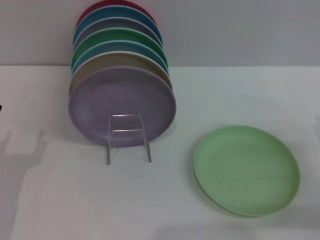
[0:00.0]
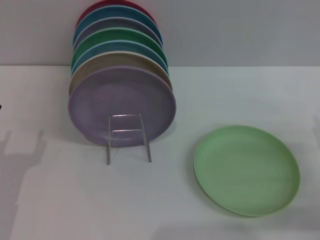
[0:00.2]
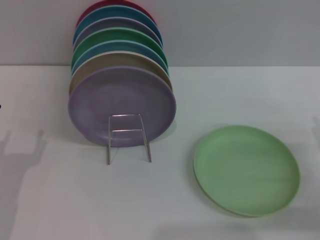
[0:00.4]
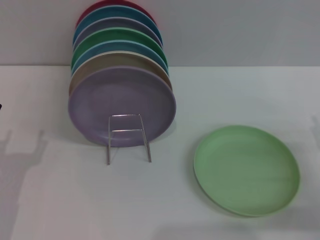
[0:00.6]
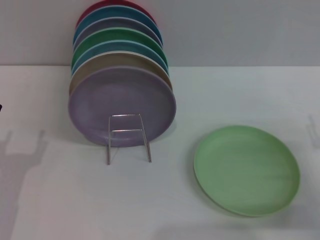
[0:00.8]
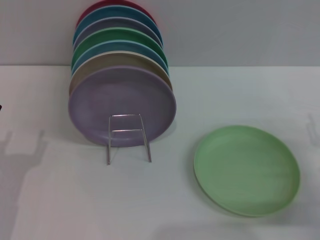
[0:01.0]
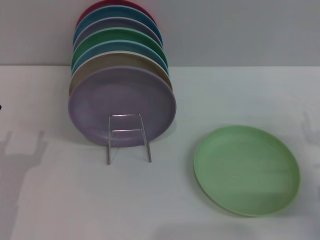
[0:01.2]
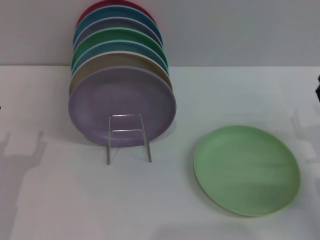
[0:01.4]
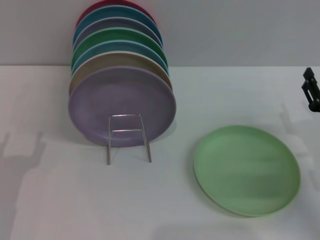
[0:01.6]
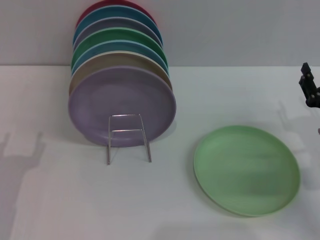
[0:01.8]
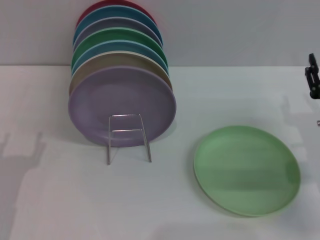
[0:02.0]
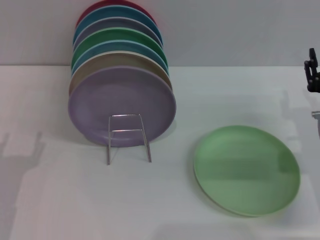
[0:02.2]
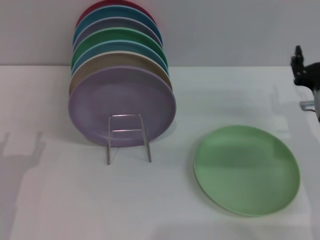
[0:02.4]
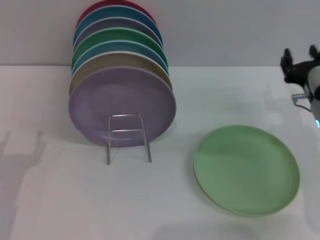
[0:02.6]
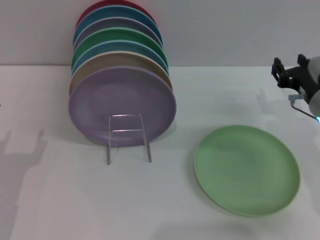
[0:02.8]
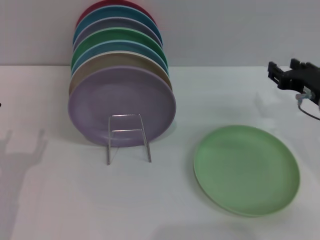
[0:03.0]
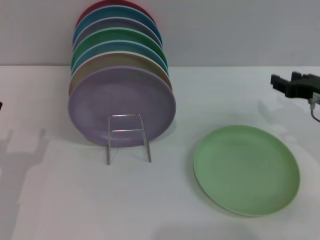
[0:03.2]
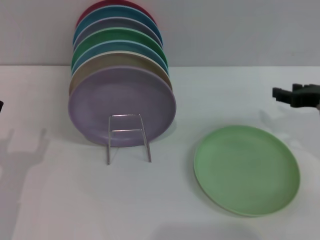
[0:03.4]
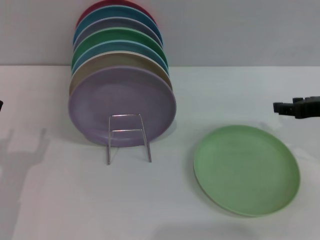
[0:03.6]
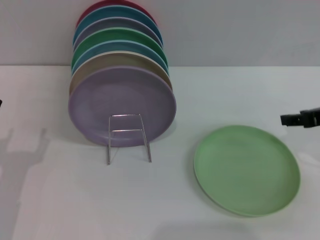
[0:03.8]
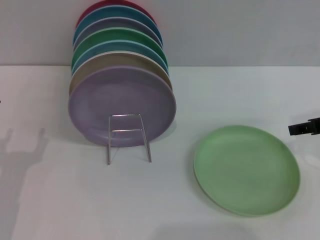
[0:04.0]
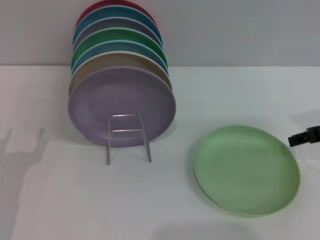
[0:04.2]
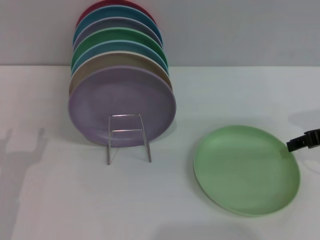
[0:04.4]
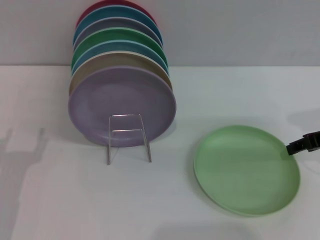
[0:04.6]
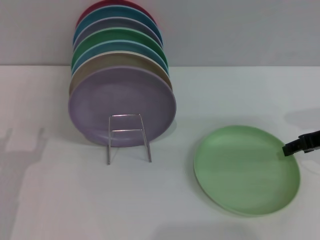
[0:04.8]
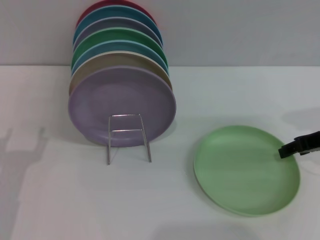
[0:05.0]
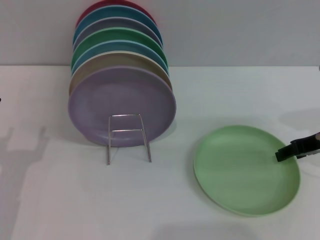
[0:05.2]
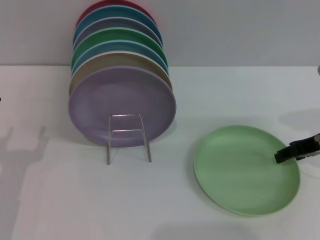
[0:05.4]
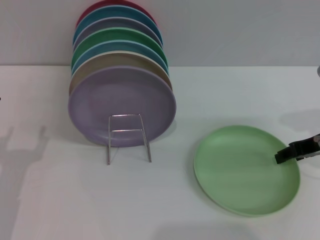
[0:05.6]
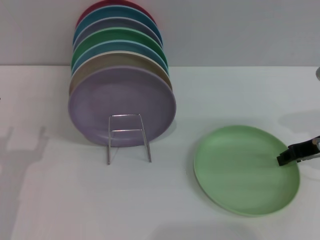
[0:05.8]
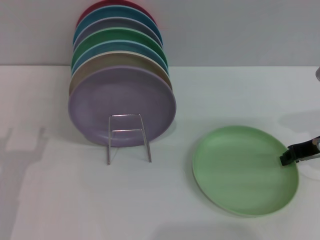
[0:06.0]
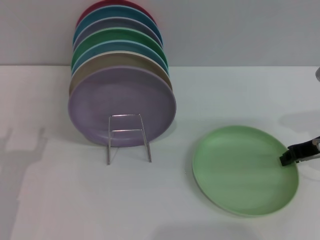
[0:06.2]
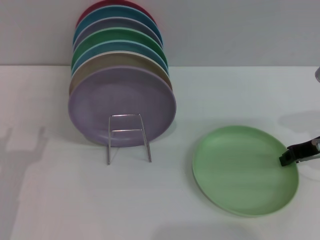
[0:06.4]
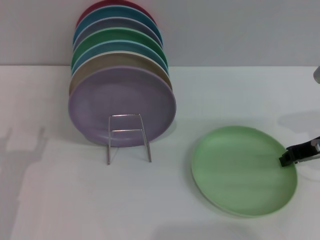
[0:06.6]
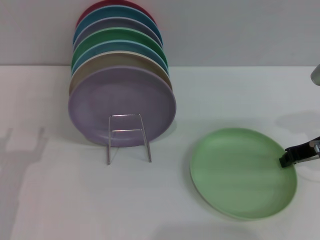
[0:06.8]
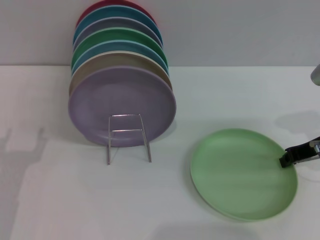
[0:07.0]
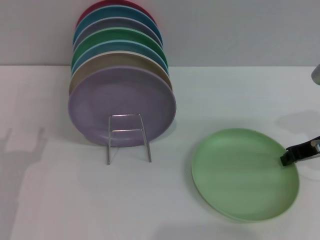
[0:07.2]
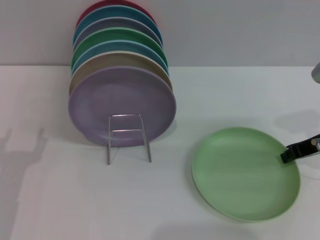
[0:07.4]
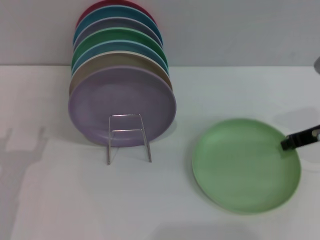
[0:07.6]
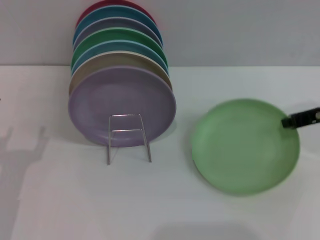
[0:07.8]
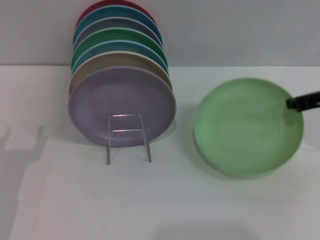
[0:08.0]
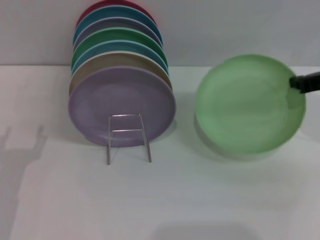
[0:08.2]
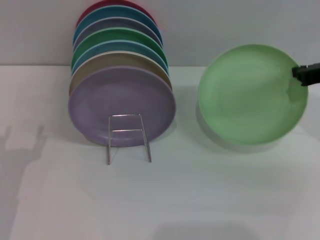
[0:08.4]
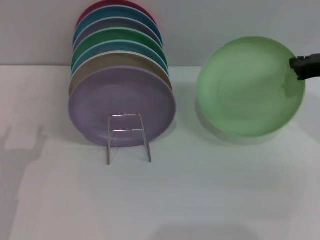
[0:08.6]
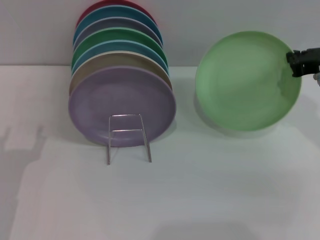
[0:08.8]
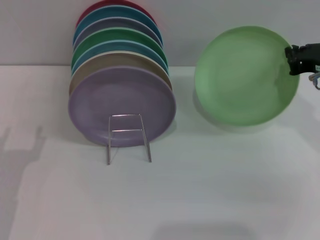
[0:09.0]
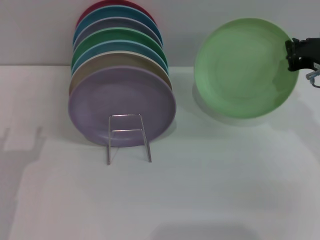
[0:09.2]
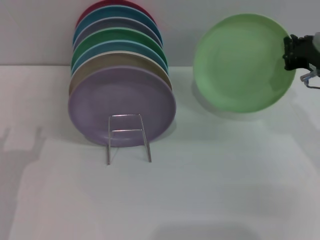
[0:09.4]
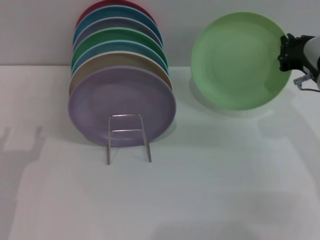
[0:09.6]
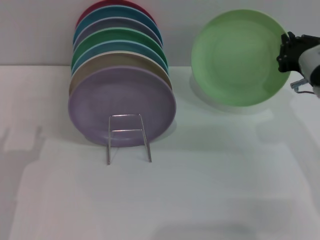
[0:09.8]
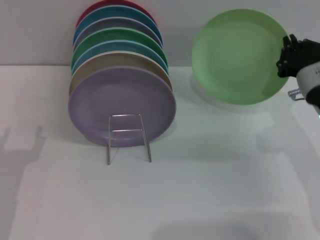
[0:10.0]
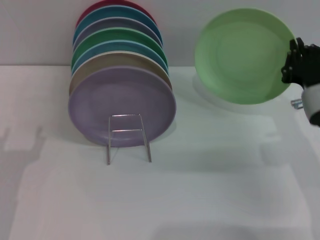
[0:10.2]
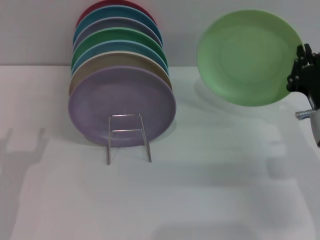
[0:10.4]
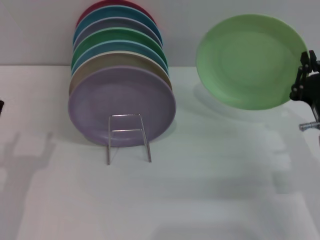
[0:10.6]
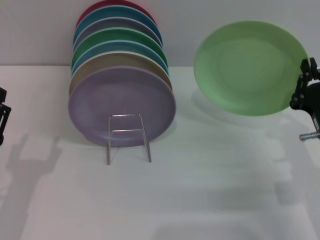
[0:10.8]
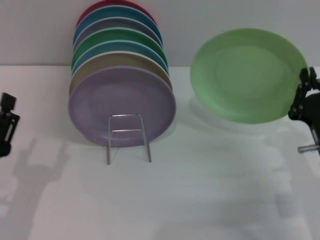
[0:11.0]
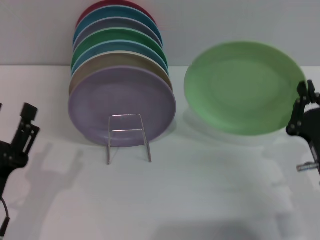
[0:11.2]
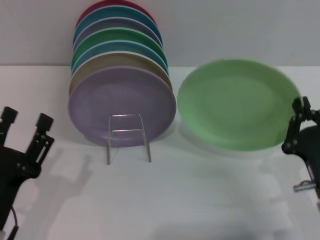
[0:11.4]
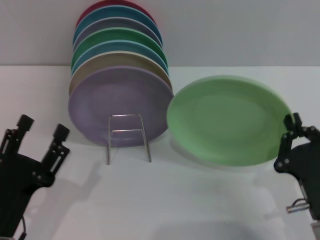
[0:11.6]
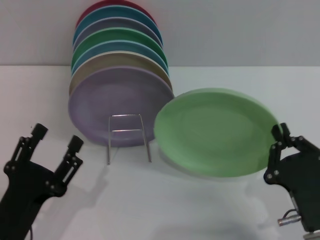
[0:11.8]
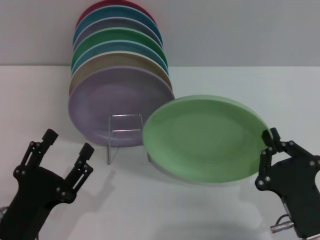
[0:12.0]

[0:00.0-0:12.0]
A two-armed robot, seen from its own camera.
Task of the whole recording: Grip the plate with one hand, pass it to the other, then set it on the shelf.
Step, 0:00.0 to 0:09.4: Pick up the plate with the right gripper.
0:00.0 to 0:01.6: The right gripper ends up approximately 5 cm from where it was.
0:01.6 to 0:03.0: The right gripper is displaced upward and forward by about 10 cm.
0:03.0 to 0:04.4: The right gripper ends up roughly 5 cm from where it was.
0:04.4 to 0:06.0: The right gripper closes up.
0:06.0 to 0:07.6: The right gripper closes up.
0:09.0 to 0:10.4: The right gripper shifts about 10 cm downward and backward.
0:10.4 to 0:12.0: The left gripper is displaced backward and to the right by roughly 10 cm. Meanwhile the right gripper is displaced backward and to the left by about 15 cm.

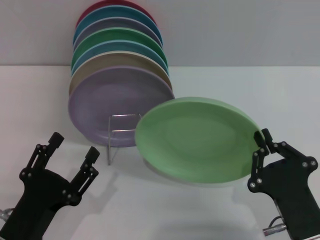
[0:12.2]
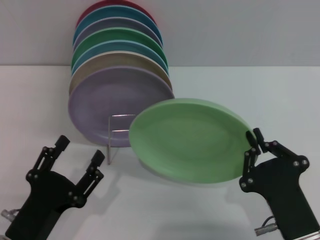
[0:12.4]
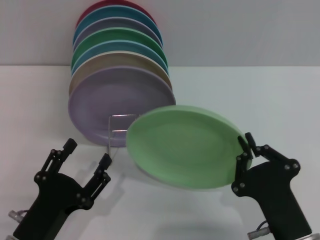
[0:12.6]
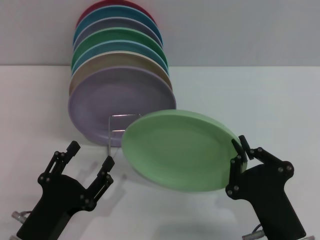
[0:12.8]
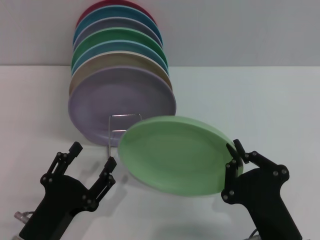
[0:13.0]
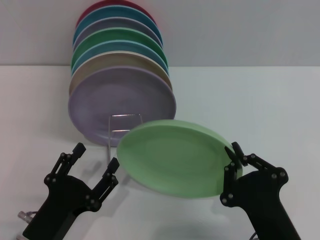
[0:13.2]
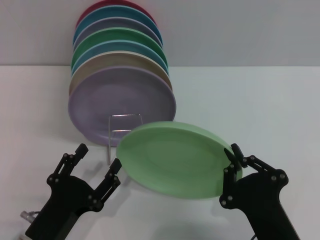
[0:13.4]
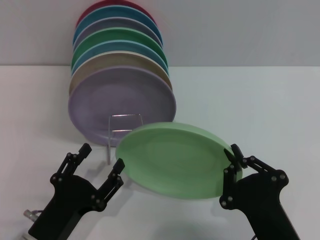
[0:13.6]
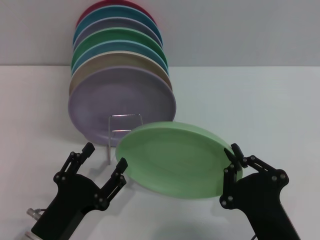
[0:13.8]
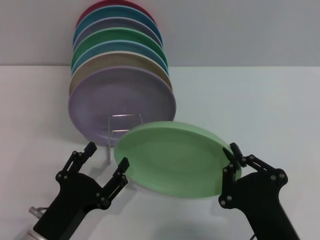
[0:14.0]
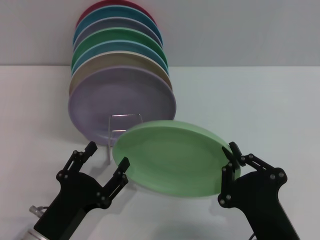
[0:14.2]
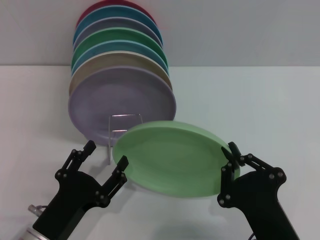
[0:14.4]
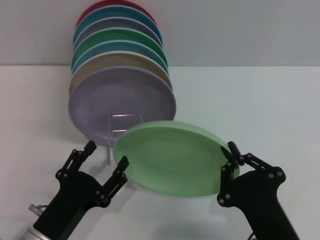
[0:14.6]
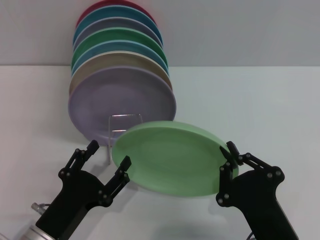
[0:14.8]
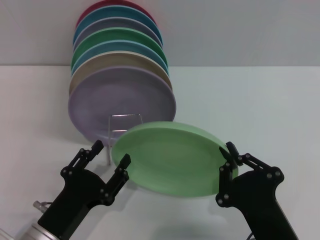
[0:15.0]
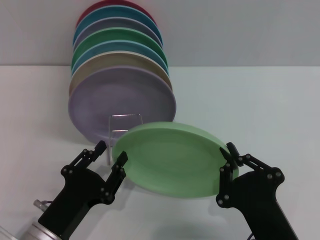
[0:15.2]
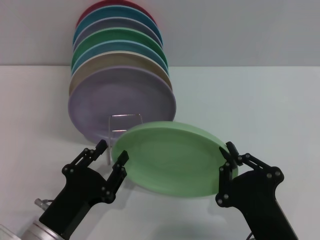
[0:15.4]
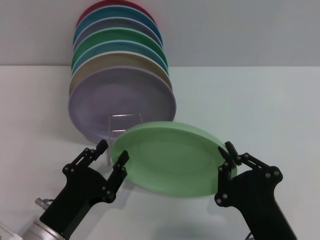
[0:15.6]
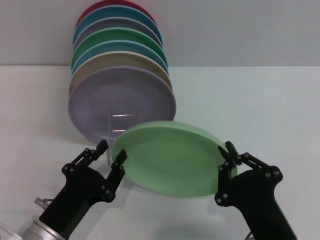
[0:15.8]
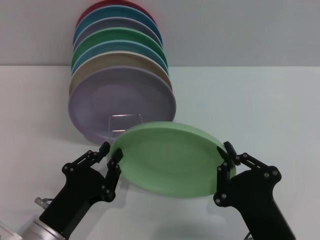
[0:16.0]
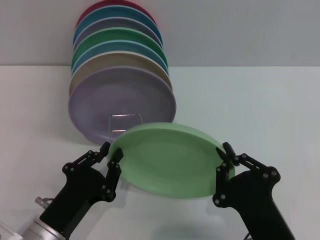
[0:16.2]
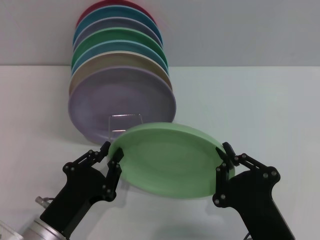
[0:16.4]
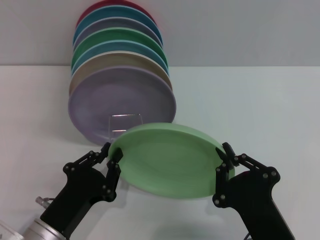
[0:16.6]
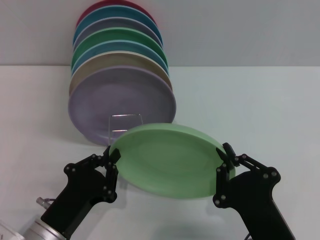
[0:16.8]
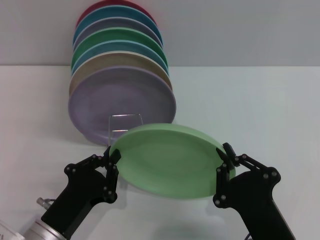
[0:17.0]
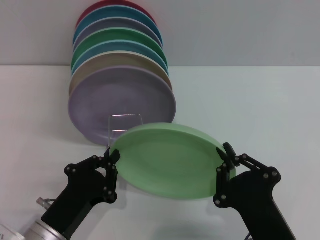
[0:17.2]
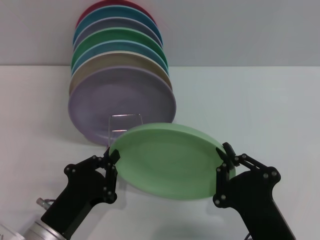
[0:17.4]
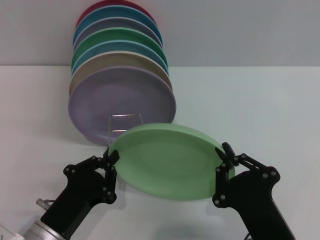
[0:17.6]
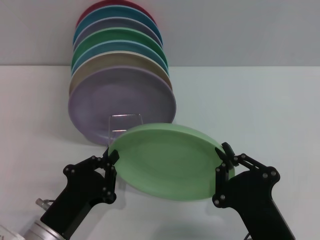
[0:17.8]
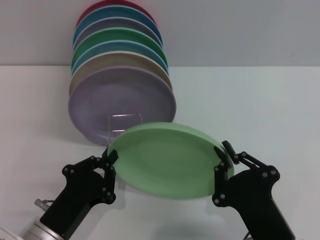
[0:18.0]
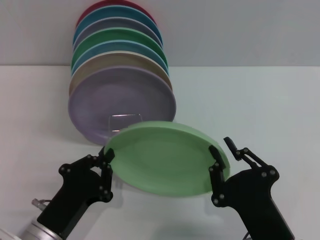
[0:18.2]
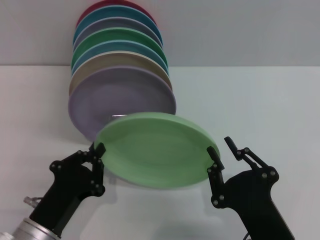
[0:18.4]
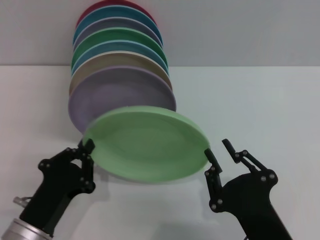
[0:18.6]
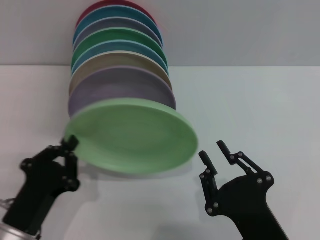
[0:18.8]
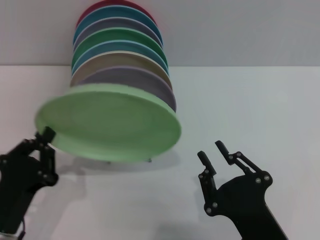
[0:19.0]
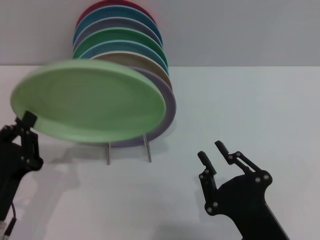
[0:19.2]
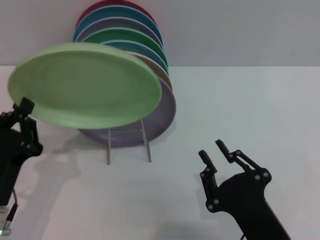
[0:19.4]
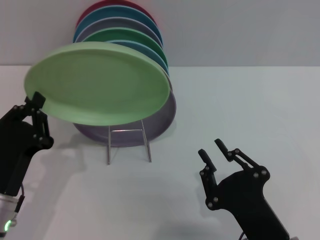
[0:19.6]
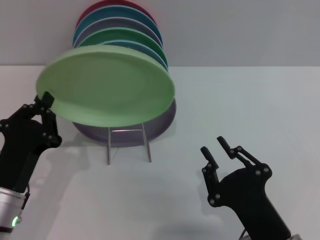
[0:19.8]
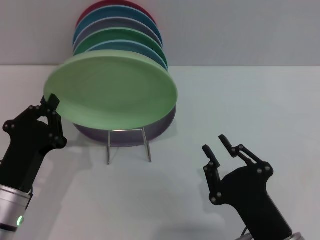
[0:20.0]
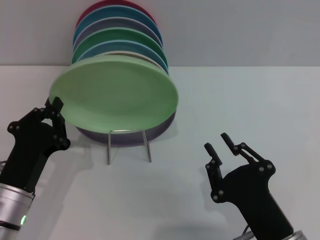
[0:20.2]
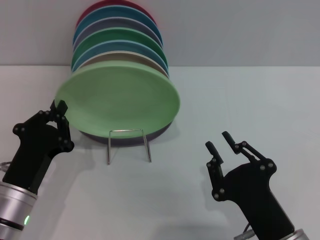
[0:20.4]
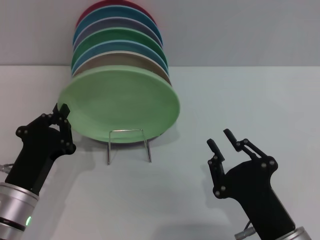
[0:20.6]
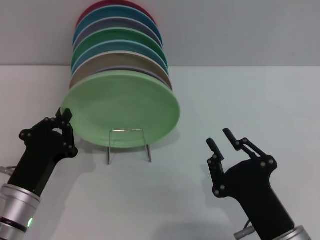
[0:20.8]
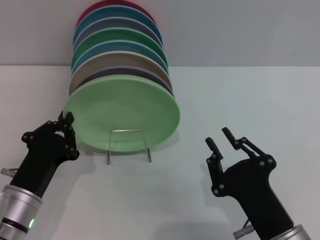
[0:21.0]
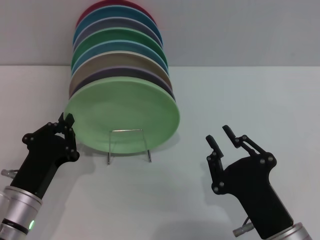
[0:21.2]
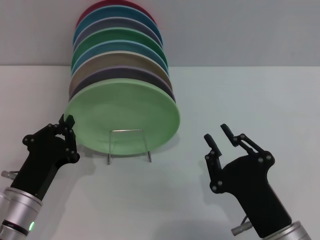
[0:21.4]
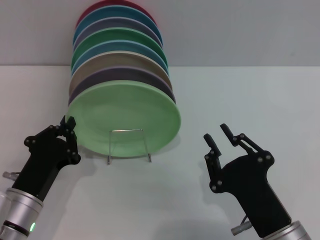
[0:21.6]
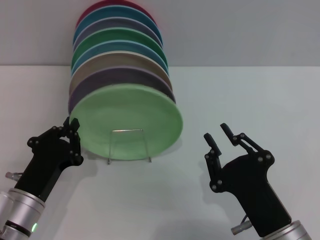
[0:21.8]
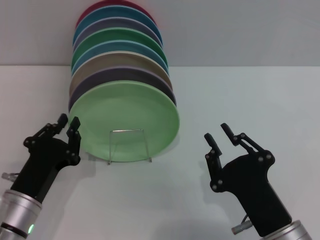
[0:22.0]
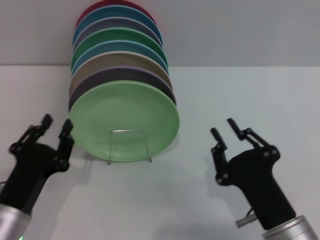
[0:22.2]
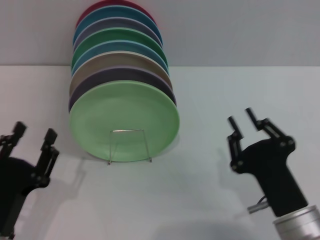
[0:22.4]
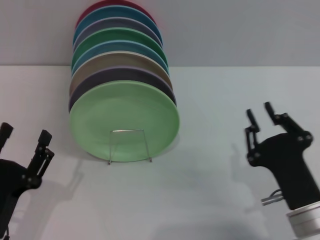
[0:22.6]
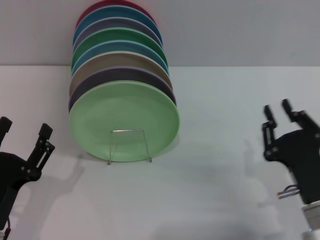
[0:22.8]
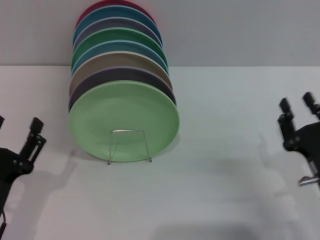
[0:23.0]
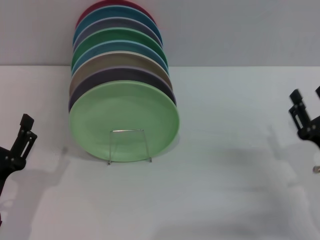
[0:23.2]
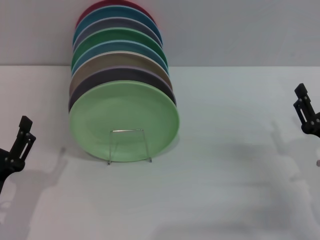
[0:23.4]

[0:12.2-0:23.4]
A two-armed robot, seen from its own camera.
Task of the whole recording: Grip the plate with one hand, pass it to the other, then set it on the shelf.
Step, 0:12.2 to 0:18.8: Pass the plate from the right gripper to the left gripper.
Step, 0:19.0 to 0:22.4: Place the plate on the shelf with the left gripper.
0:13.8 to 0:15.4: The grippers move only a little.
0:15.4 to 0:17.0: The left gripper closes.
0:17.0 to 0:18.6: The right gripper opens.
0:20.2 to 0:21.8: The grippers make only small movements.
0:21.8 to 0:23.4: The left gripper changes place by some 5 cm, and opens up; the right gripper travels to the right and forward by approximately 15 cm.
